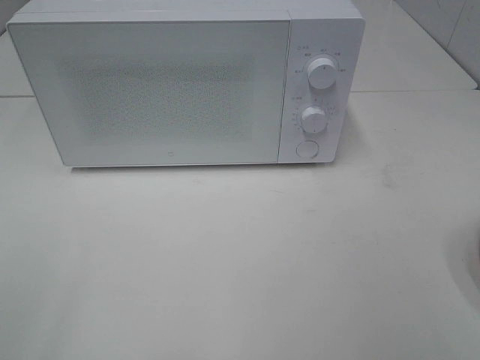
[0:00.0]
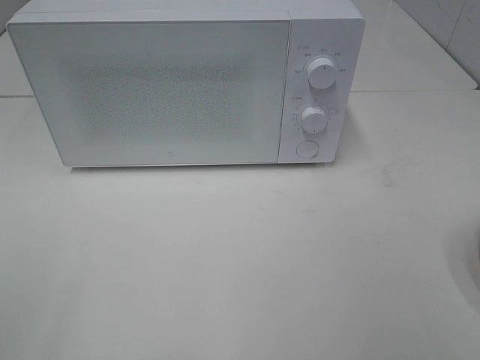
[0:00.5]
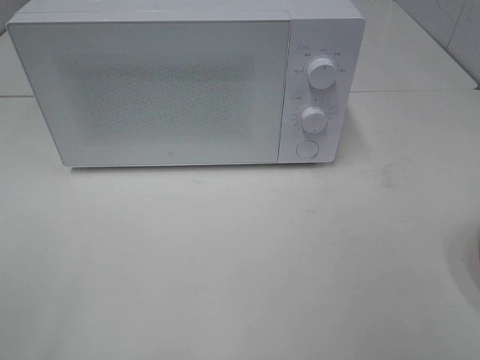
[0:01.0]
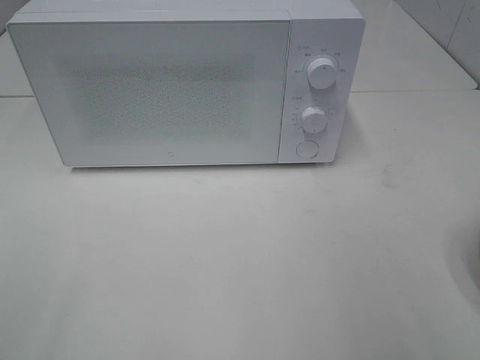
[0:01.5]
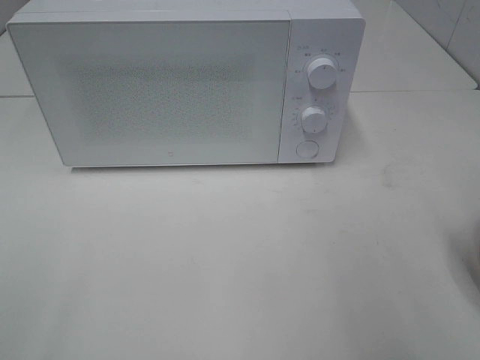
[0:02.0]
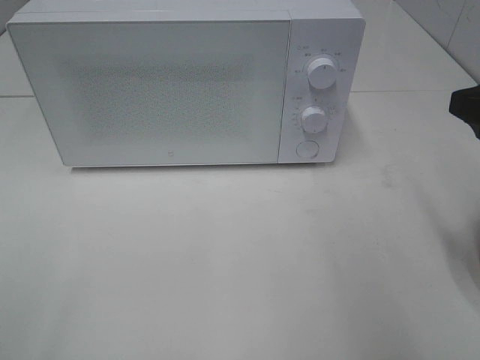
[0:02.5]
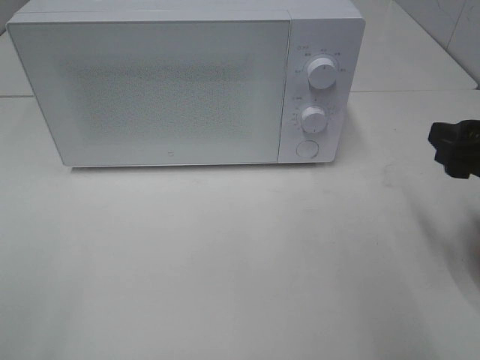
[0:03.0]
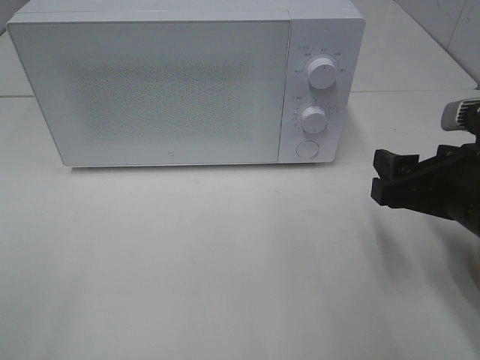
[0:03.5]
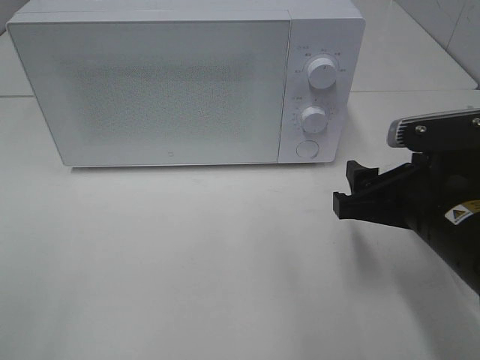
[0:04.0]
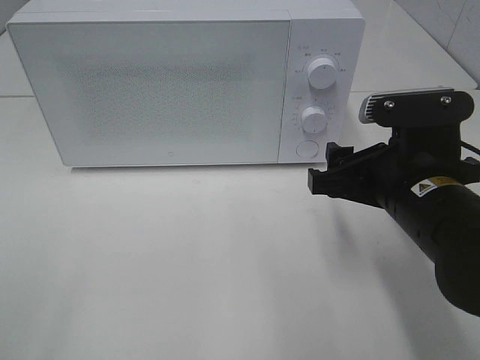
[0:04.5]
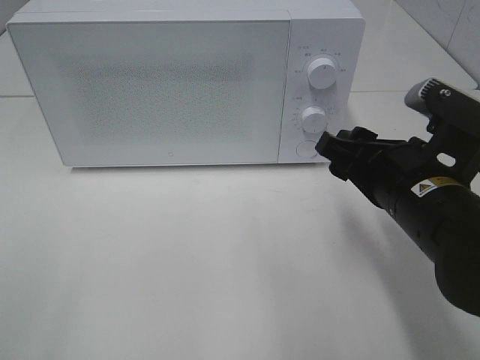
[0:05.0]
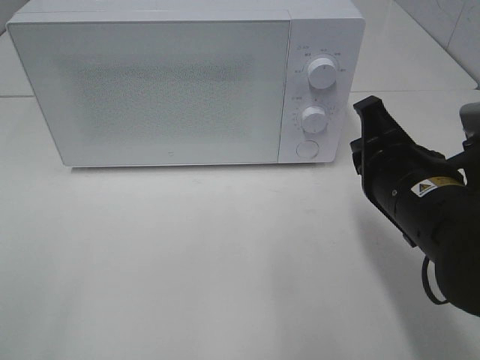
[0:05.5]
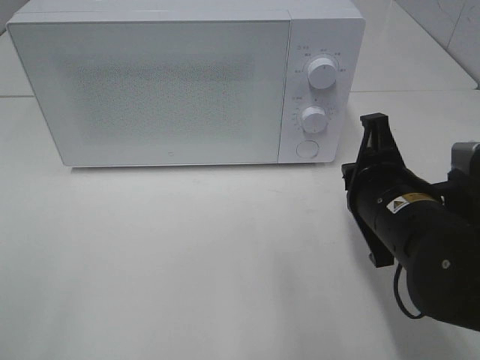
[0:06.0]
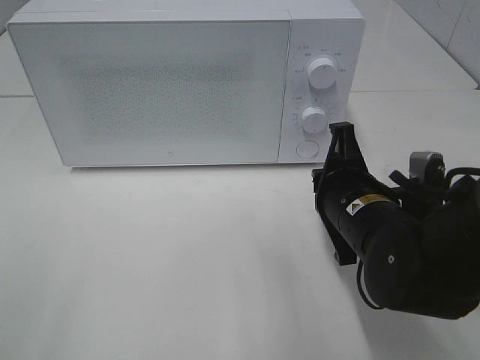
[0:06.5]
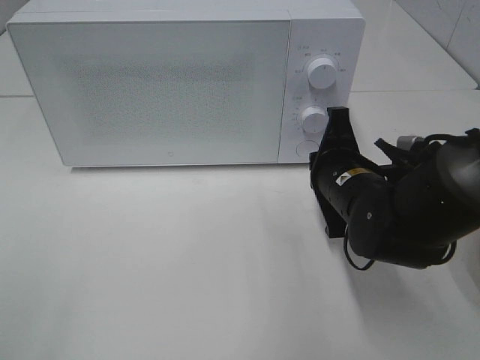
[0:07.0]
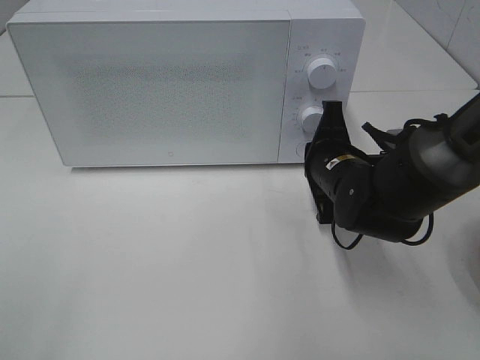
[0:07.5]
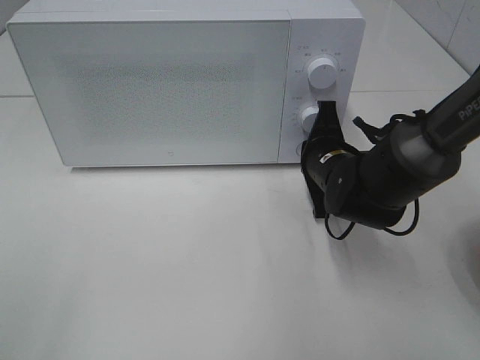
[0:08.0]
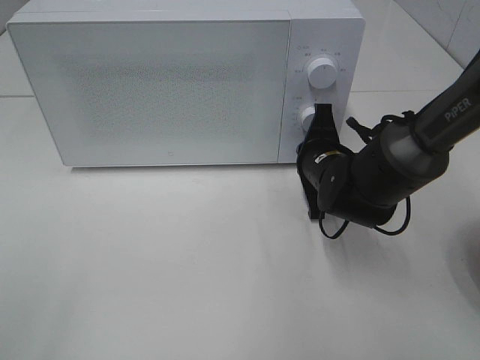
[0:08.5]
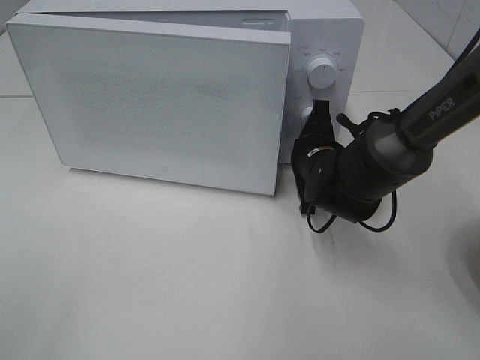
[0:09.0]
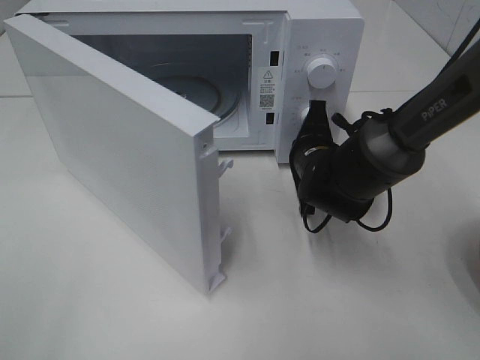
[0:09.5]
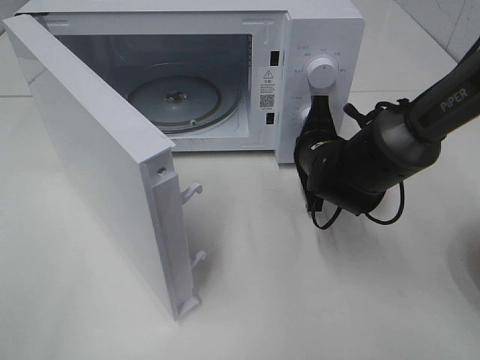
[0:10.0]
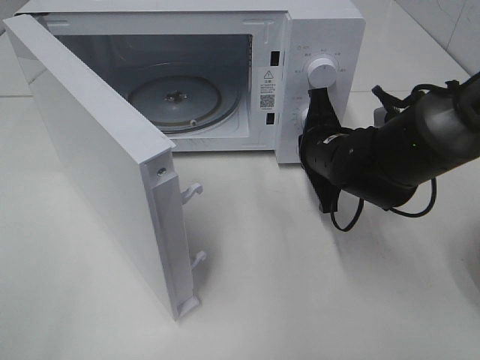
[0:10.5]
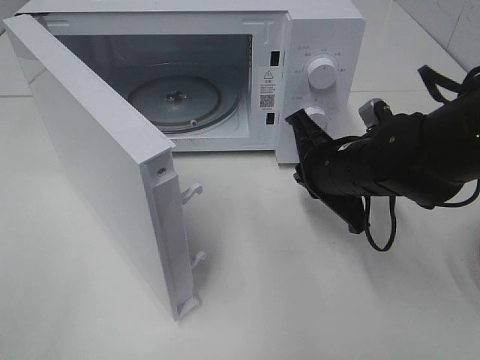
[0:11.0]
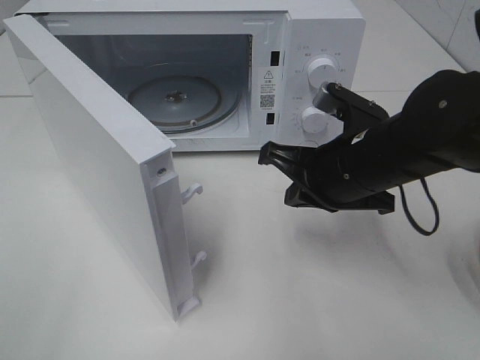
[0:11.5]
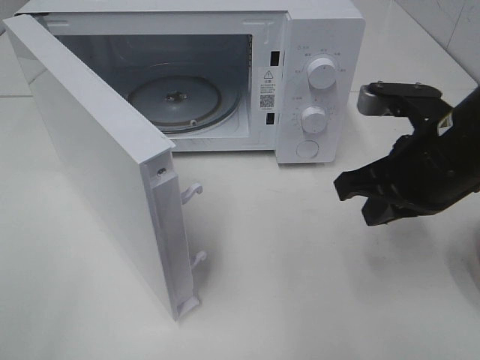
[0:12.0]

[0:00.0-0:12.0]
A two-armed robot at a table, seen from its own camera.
Task of the whole recording: Heat the burger.
Step, 0.0 to 10.0 s: Right hand: press the switch.
2.0 to 4.0 s: The right gripper shifts about 15 cm downward, to the left and forward.
4.0 to 6.0 s: The right gripper closes up.
6.0 to 8.0 s: The right gripper shifts roughly 15 cm forward and downward.
10.0 to 12.0 s: The right gripper shifts about 15 cm backward, upward and to the right.

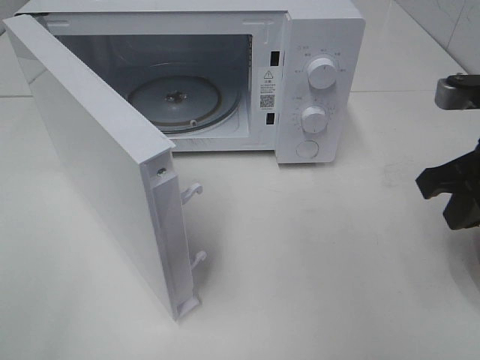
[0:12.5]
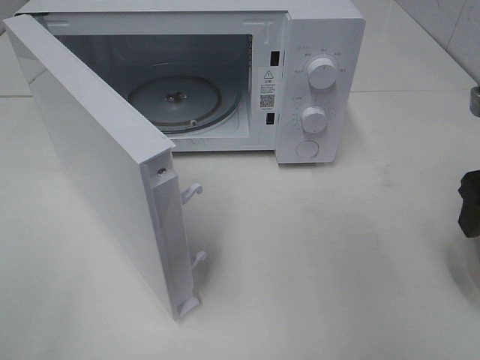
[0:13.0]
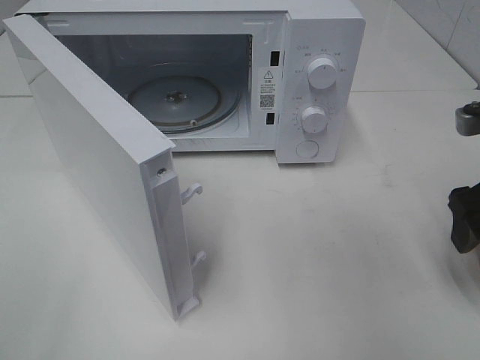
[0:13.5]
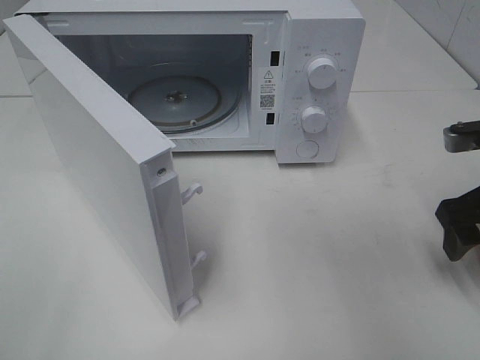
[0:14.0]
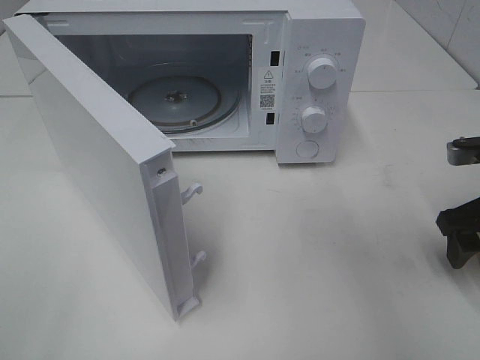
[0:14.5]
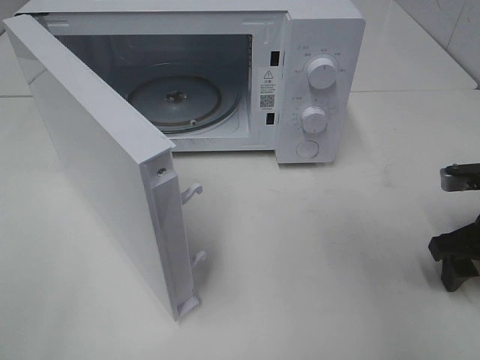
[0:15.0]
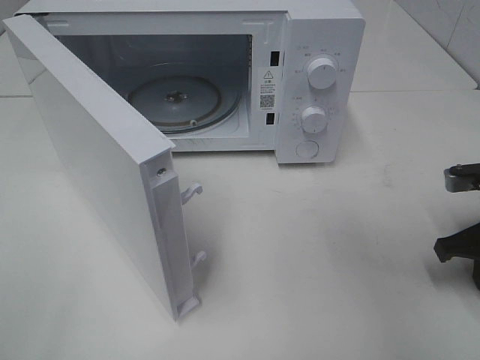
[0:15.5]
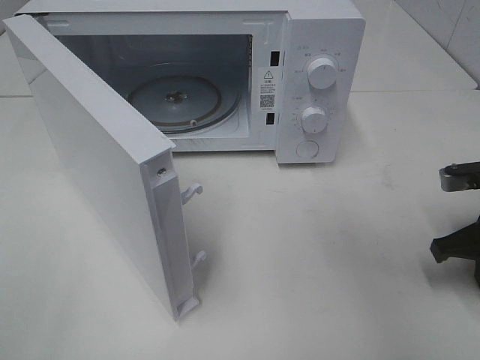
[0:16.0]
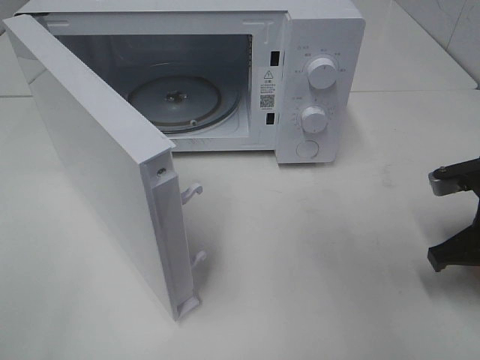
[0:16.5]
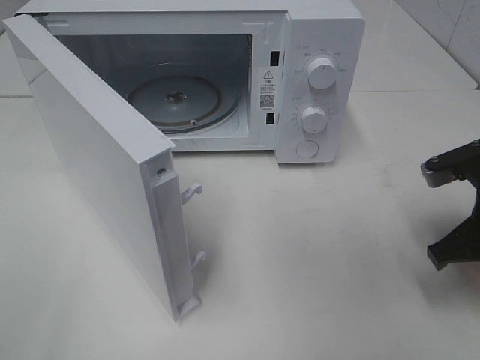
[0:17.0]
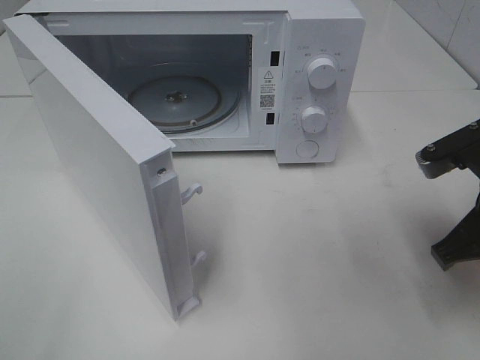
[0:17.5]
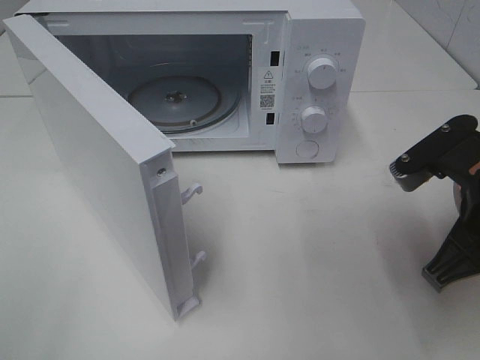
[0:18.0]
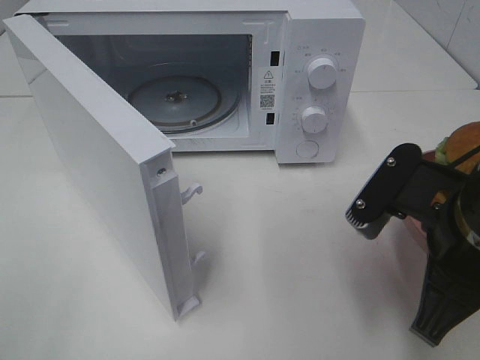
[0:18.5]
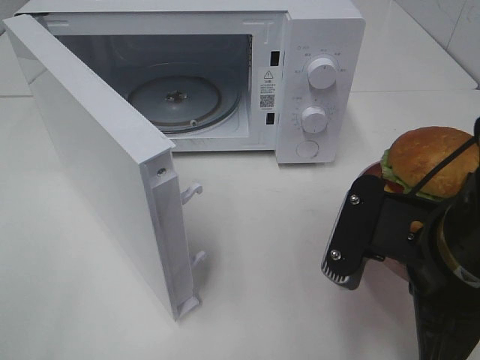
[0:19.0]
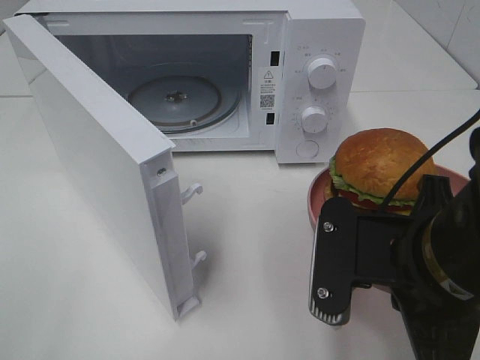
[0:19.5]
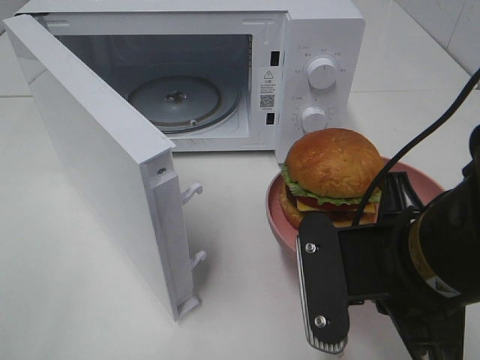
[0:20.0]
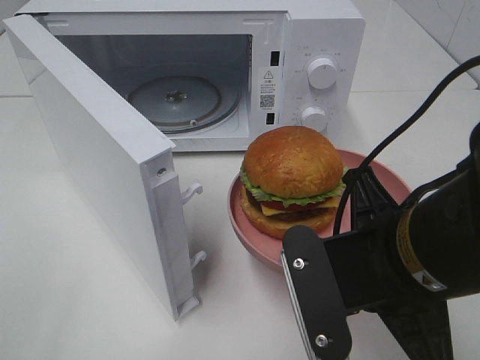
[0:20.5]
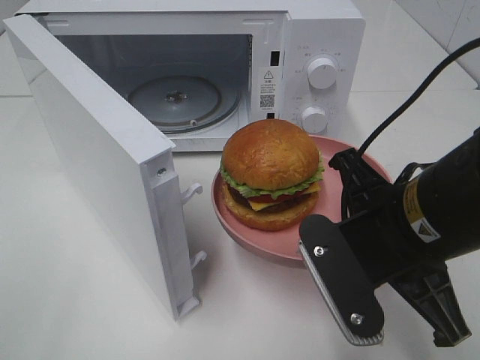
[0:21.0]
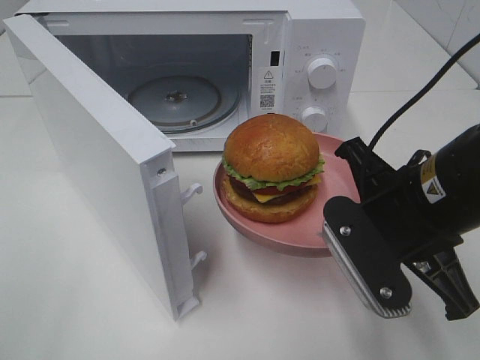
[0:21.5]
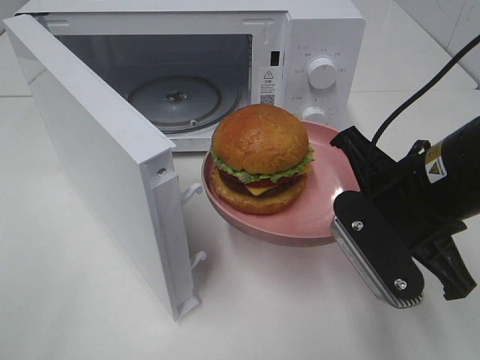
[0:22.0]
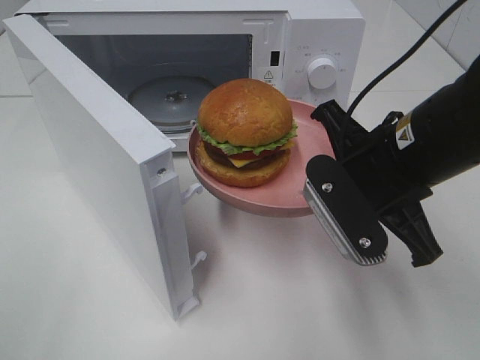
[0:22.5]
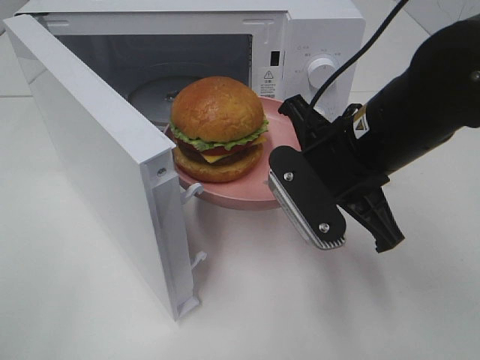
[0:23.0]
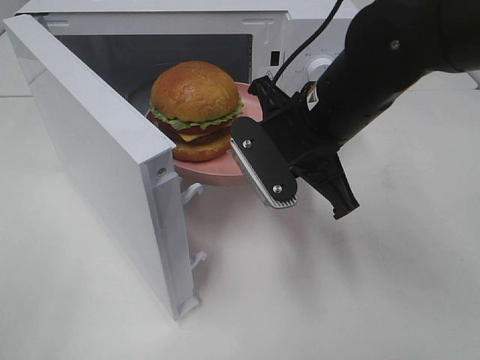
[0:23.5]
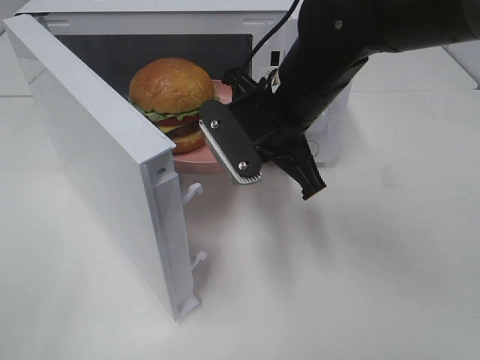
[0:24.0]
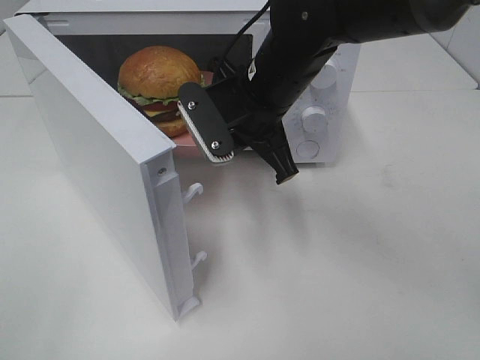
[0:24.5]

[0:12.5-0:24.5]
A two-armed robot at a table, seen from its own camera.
Task of the whole recording: Heat the burger.
Step, 12.5 to 16.0 s: Right hand: grab the plate with the hamburger.
12.5 to 14.5 s: The right gripper moves downward and to the right, roughly 10 cm, and opens.
14.5 to 16.5 s: The right gripper closes.
16.5 to 18.5 s: The right gripper heads to the left, backward and upward, covering roughly 15 cm.
18.5 to 20.5 s: The right gripper shifts about 5 cm to the left.
20.5 to 22.5 s: The right gripper goes roughly 10 cm forward.
22.5 to 24.5 s: The right gripper moves forward and to the left, approximately 15 cm.

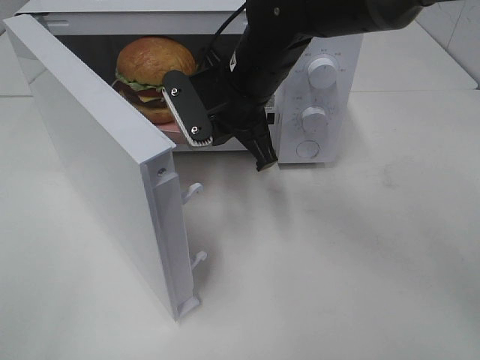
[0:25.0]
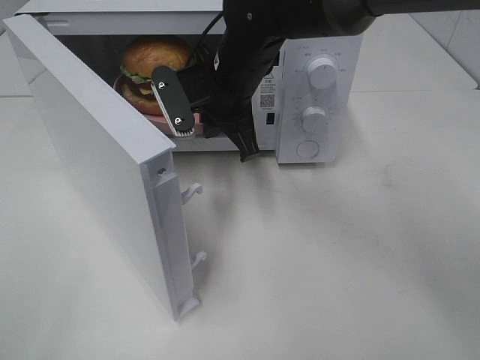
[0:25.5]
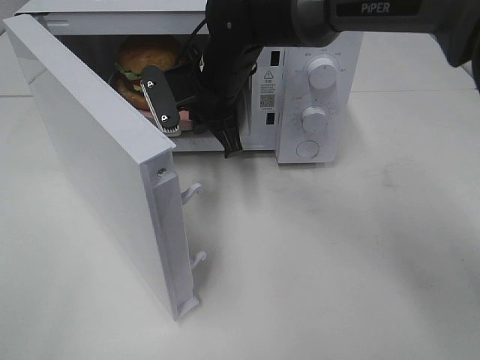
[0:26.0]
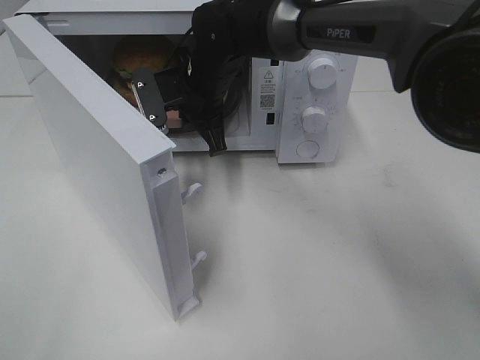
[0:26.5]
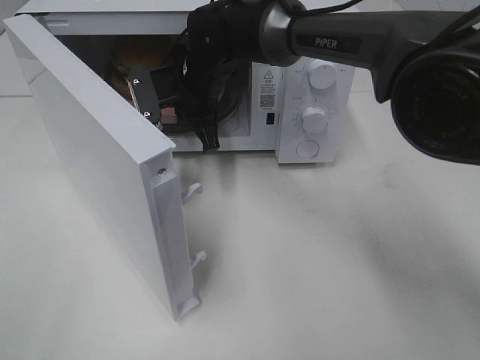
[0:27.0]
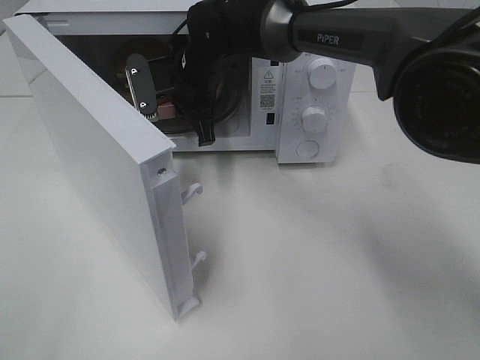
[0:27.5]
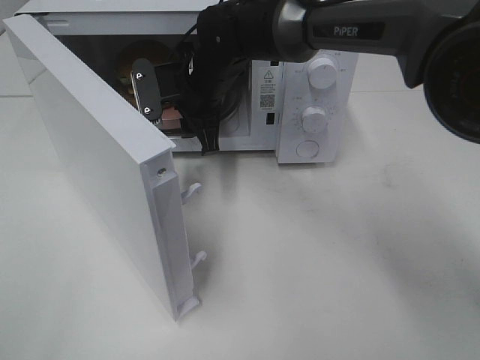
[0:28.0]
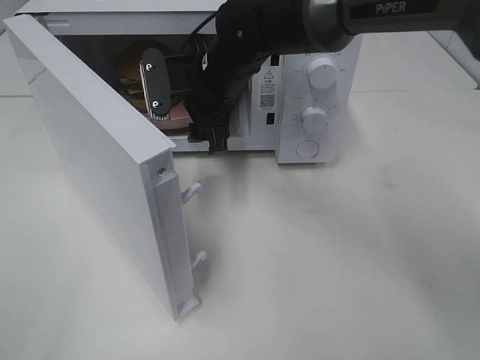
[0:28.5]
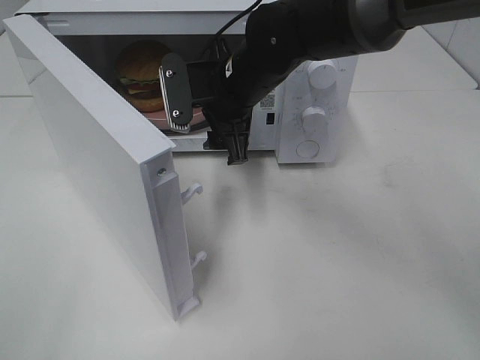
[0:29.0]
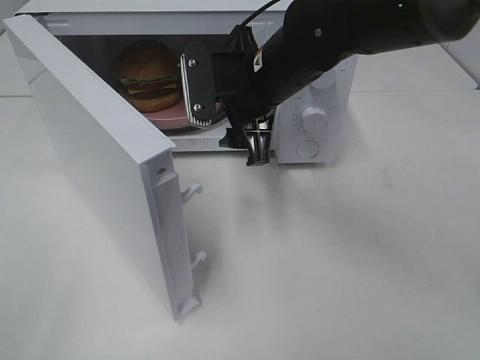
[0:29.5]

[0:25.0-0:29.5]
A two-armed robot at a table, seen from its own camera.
Task of the whole recording: Heat the burger.
Step, 25.0 to 27.5 s: Right hand: place the plate in the microwave.
25.0 to 27.0 s: The right gripper travels forward and to the left by some 10 cm.
27.0 to 29.5 s: The right gripper heads backward and to the right, covering about 10 cm, and opens.
